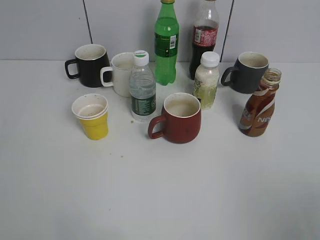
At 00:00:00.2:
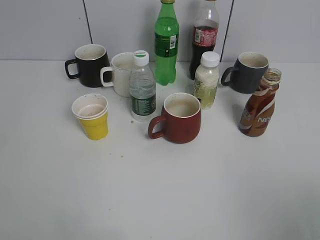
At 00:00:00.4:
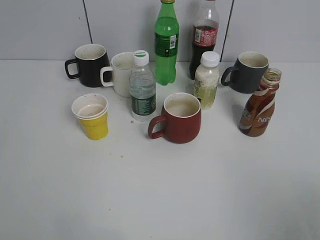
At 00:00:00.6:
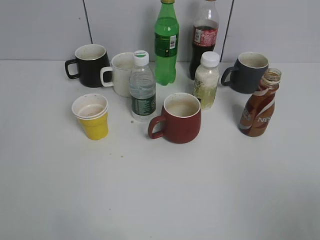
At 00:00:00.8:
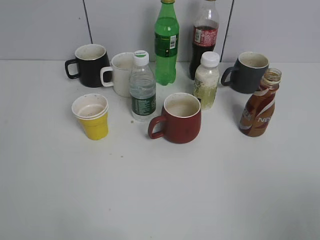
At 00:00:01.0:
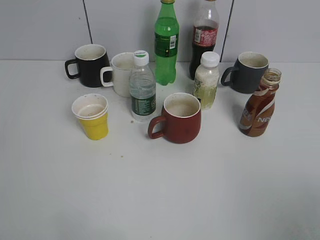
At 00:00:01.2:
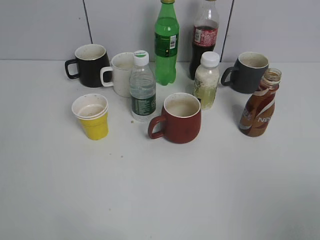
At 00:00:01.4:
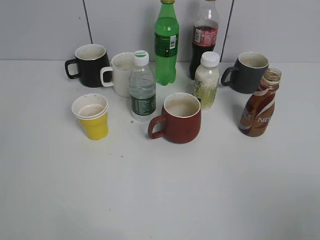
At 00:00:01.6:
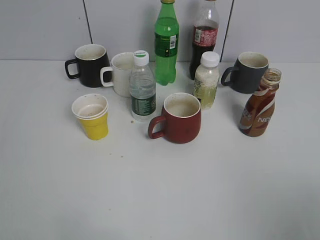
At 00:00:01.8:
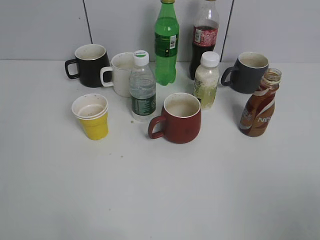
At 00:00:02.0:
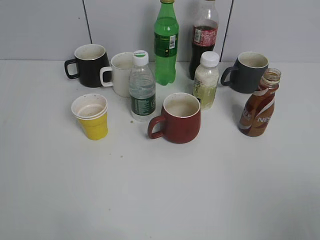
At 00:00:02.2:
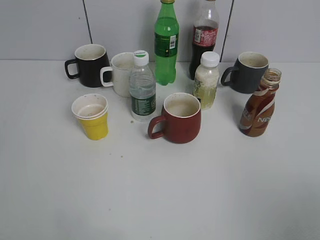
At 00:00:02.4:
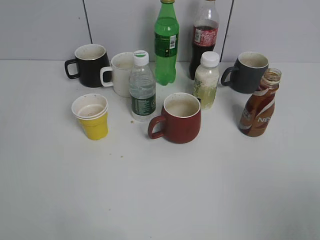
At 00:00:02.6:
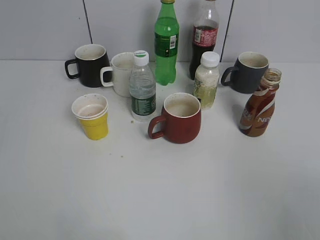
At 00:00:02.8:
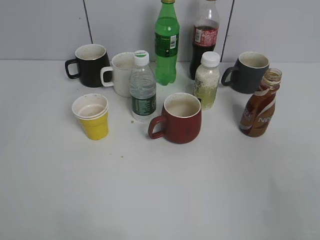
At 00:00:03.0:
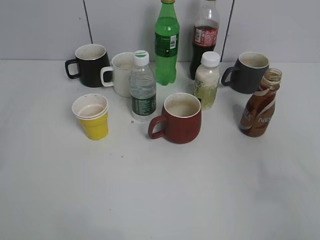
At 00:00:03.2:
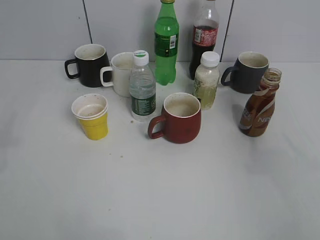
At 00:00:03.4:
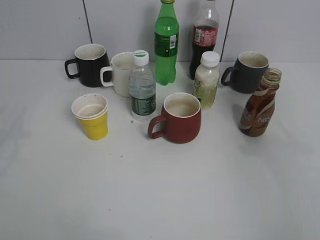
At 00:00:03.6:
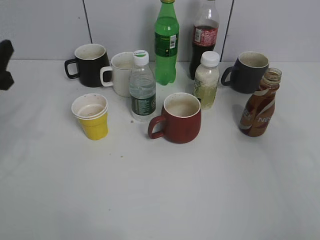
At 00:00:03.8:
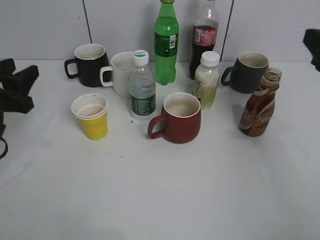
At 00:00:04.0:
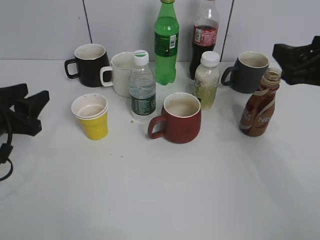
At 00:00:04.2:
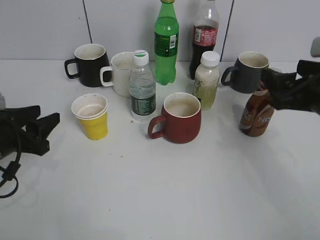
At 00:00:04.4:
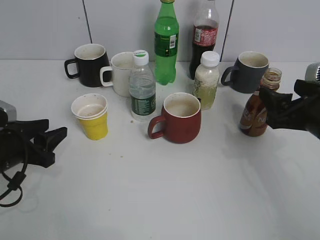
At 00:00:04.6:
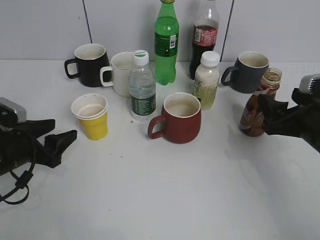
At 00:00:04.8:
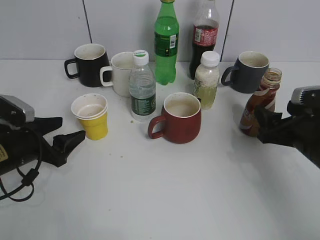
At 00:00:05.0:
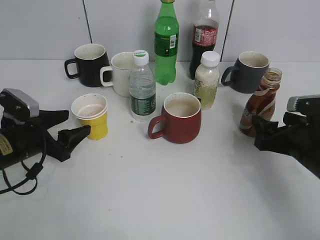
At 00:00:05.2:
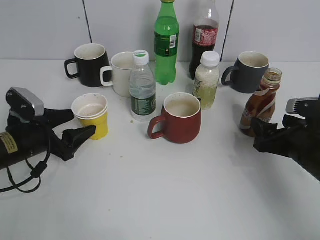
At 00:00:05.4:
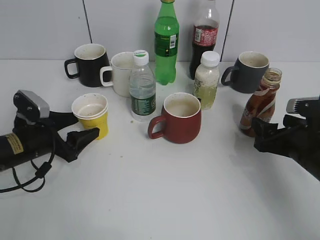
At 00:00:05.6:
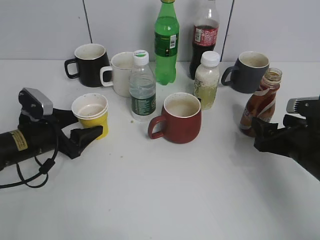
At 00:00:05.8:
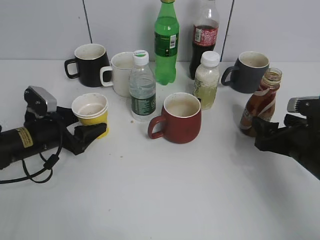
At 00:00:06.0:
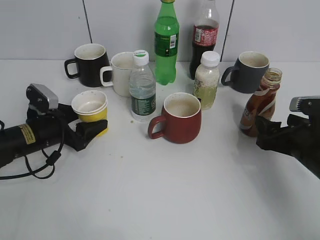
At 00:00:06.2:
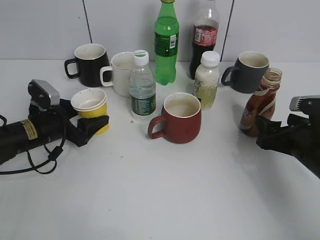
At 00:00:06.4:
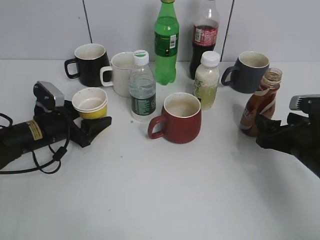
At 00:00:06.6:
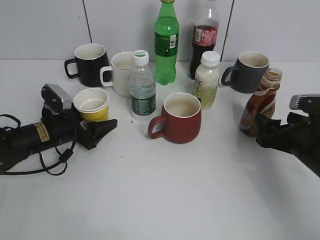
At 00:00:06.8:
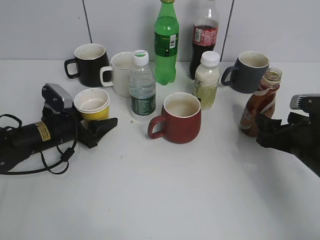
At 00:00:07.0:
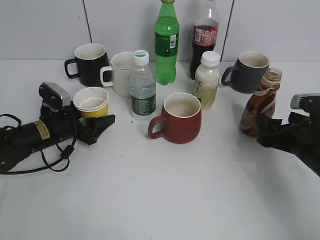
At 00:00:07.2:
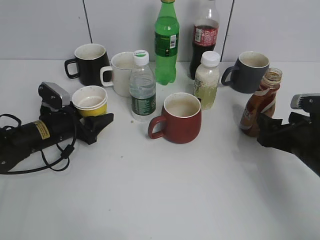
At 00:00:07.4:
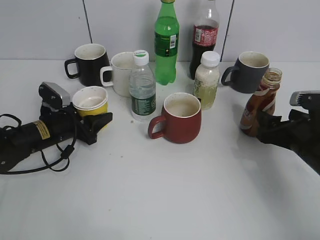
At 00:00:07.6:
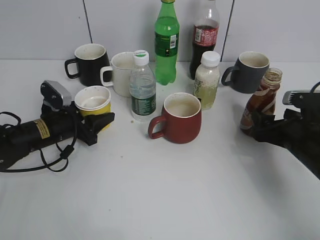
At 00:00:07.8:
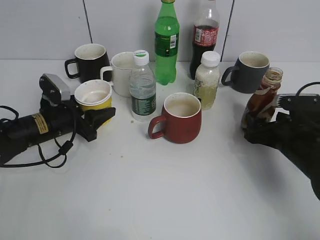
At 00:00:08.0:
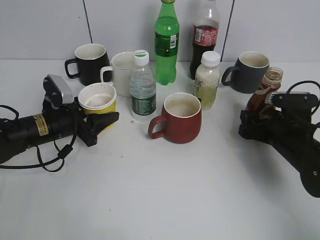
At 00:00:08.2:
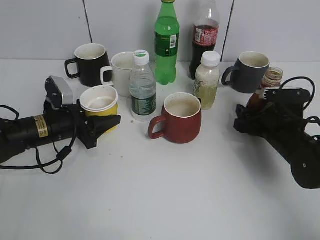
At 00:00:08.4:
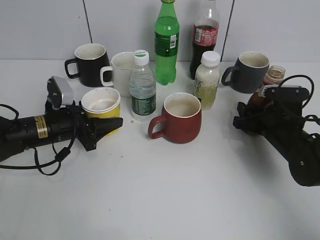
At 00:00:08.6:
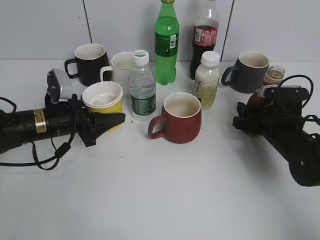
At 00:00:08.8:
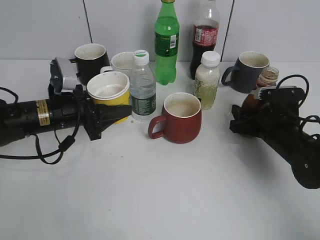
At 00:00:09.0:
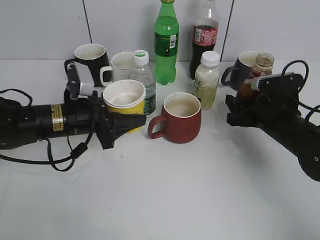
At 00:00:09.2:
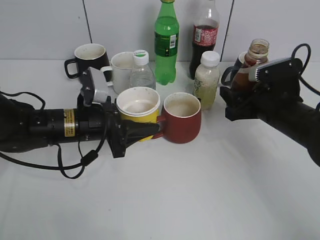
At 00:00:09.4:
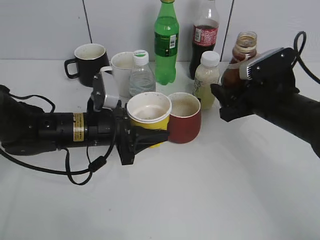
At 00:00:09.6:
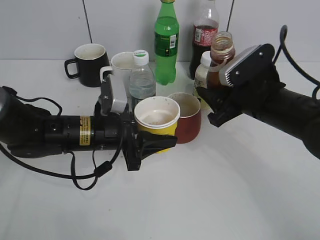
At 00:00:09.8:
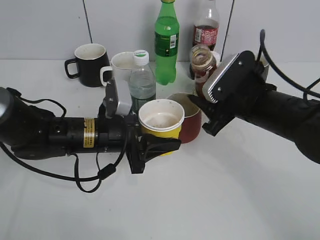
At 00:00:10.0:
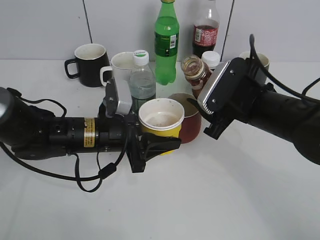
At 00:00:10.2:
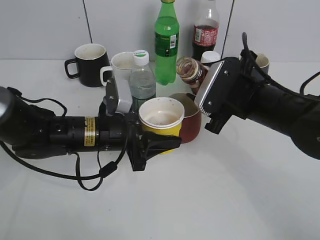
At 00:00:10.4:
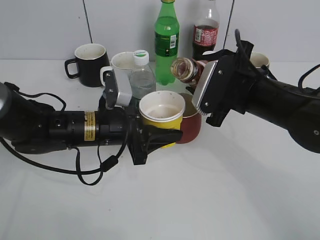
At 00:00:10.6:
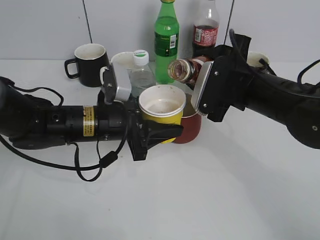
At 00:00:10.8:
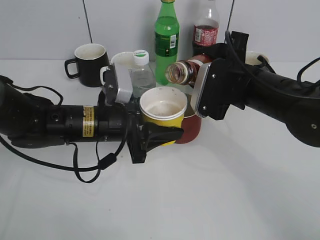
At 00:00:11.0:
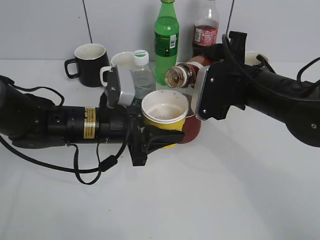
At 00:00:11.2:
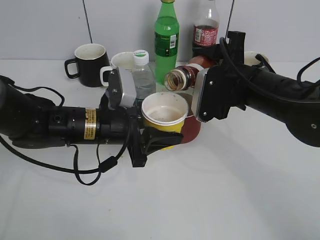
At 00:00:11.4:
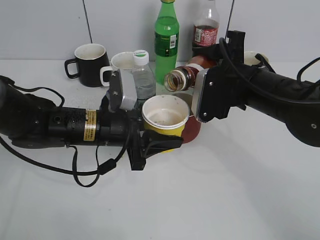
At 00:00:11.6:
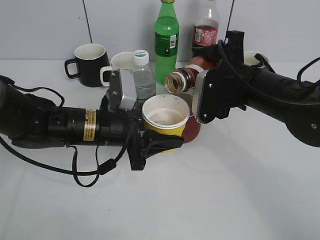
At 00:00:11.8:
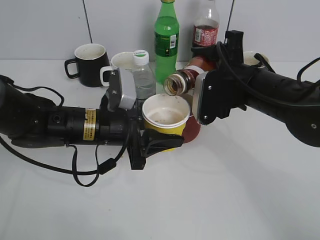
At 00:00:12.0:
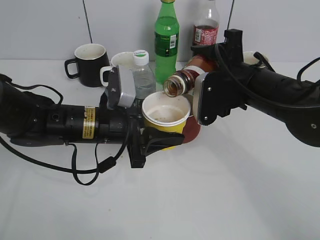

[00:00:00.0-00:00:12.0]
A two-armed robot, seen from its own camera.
Step, 00:00:02.0 to 00:00:07.2: Grasp the yellow paper cup with left gripper.
Step, 00:00:07.4 to 00:00:08.4: Grasp the bottle with coffee with right gripper.
00:00:01.6 to 00:00:03.0: The right gripper heads forward, covering some 10 cm.
00:00:03.0 to 00:00:04.4: The left gripper is displaced downward and forward by approximately 25 cm. Meanwhile the right gripper moves forward and downward, approximately 20 cm.
00:00:04.4 to 00:00:06.0: The left gripper shifts approximately 10 cm forward, and opens its fingers. Meanwhile the right gripper moves downward, some 5 cm.
00:00:06.0 to 00:00:07.6: The left gripper closes.
00:00:07.6 to 00:00:09.0: The left gripper is displaced upward and to the right by some 10 cm. The right gripper shifts by roughly 5 cm, and closes.
00:00:09.0 to 00:00:10.4: The right gripper is displaced upward and to the left by approximately 10 cm; the left gripper goes some 5 cm to the right.

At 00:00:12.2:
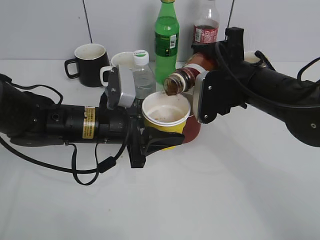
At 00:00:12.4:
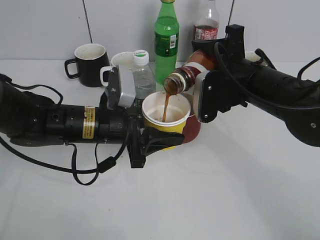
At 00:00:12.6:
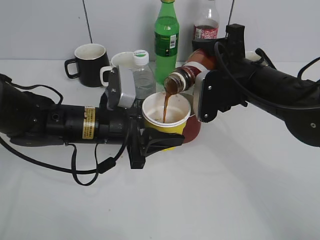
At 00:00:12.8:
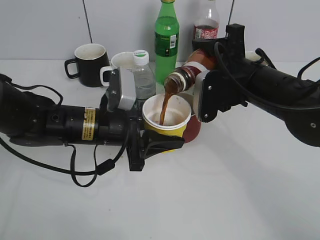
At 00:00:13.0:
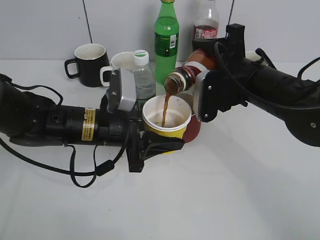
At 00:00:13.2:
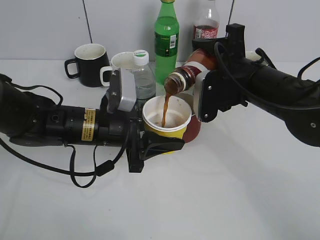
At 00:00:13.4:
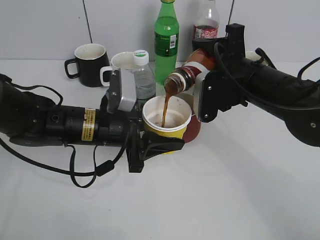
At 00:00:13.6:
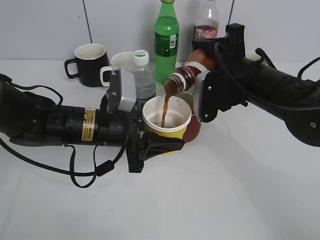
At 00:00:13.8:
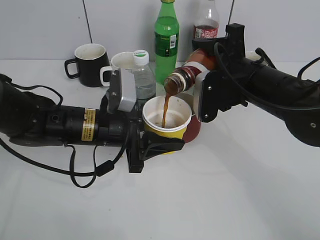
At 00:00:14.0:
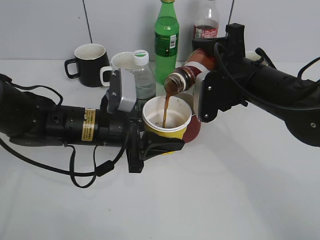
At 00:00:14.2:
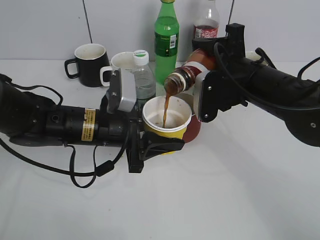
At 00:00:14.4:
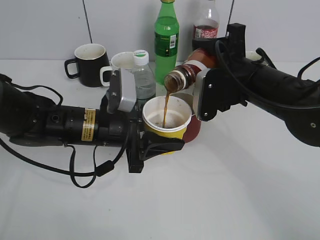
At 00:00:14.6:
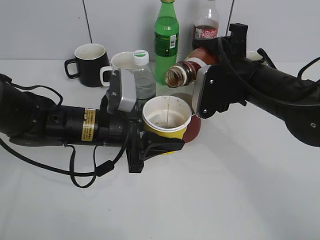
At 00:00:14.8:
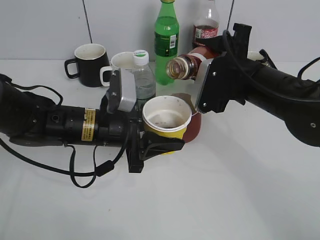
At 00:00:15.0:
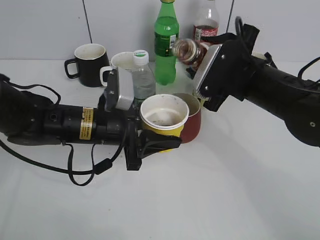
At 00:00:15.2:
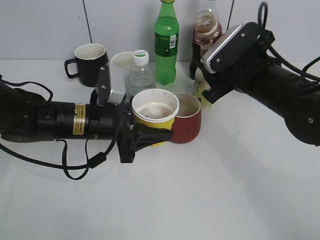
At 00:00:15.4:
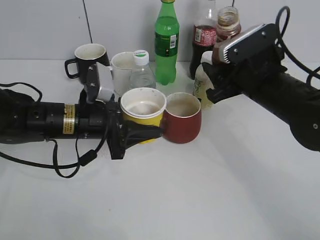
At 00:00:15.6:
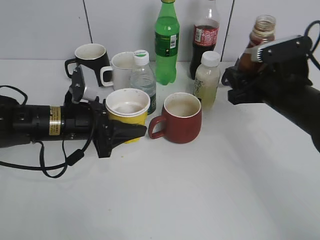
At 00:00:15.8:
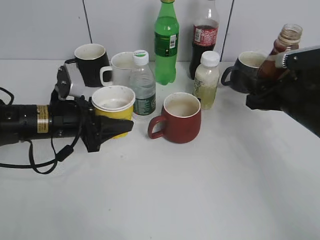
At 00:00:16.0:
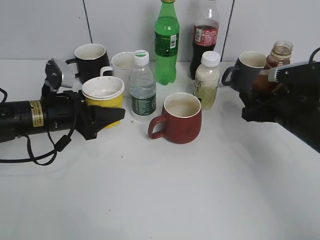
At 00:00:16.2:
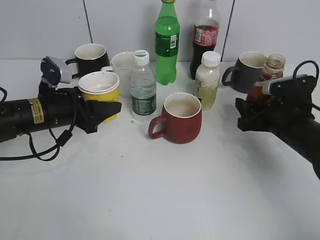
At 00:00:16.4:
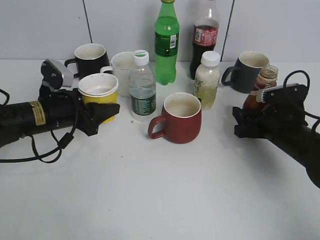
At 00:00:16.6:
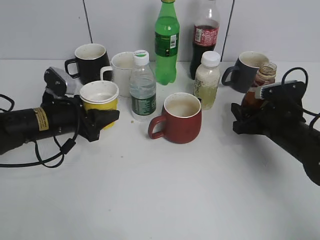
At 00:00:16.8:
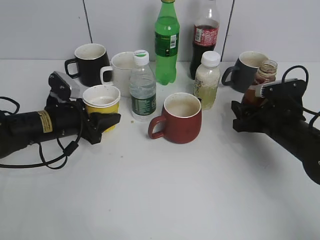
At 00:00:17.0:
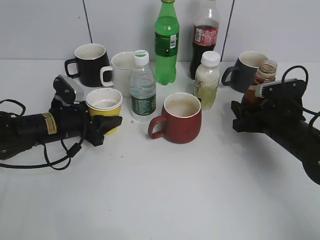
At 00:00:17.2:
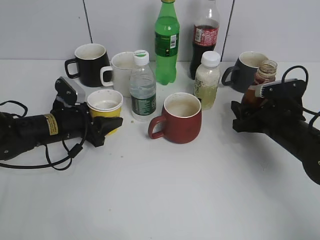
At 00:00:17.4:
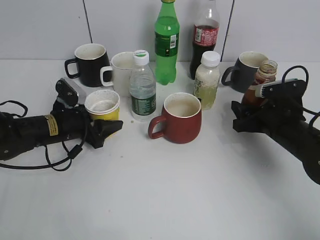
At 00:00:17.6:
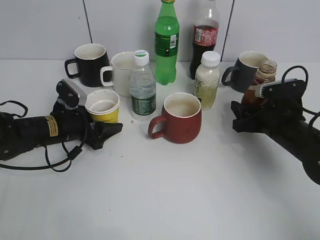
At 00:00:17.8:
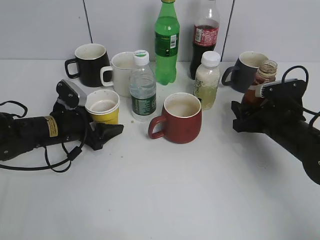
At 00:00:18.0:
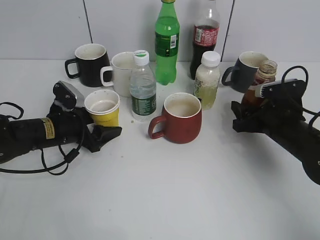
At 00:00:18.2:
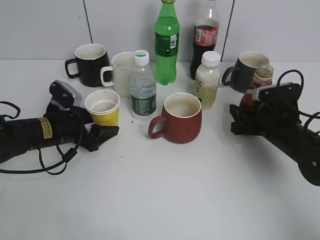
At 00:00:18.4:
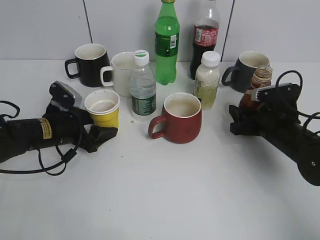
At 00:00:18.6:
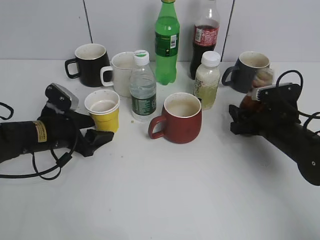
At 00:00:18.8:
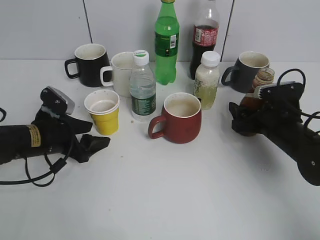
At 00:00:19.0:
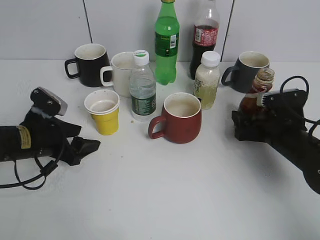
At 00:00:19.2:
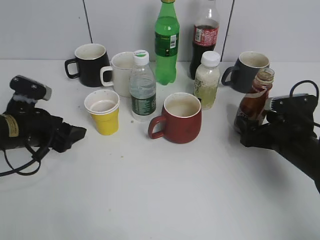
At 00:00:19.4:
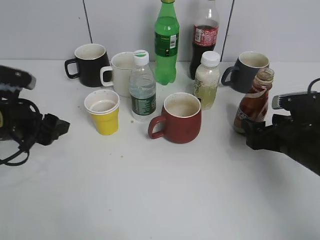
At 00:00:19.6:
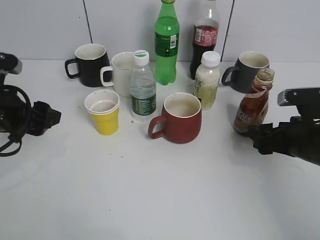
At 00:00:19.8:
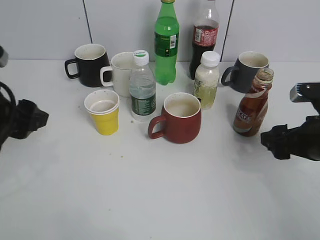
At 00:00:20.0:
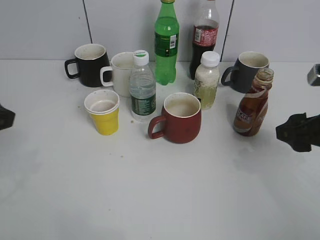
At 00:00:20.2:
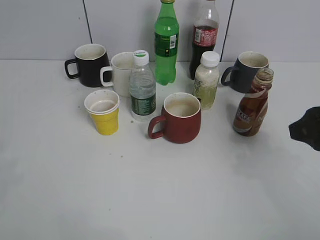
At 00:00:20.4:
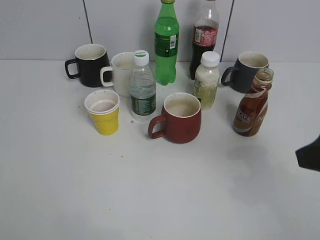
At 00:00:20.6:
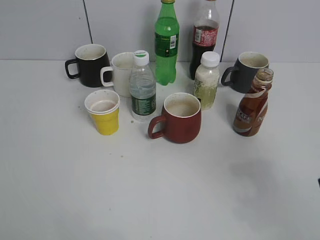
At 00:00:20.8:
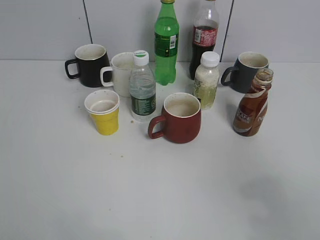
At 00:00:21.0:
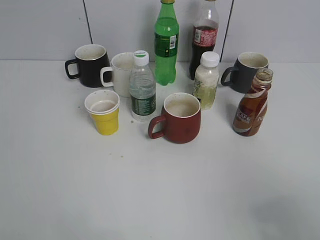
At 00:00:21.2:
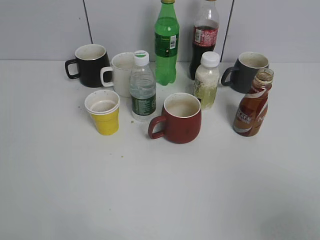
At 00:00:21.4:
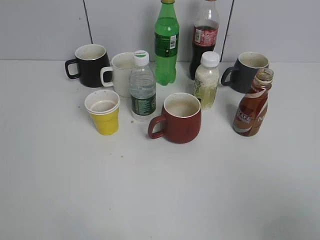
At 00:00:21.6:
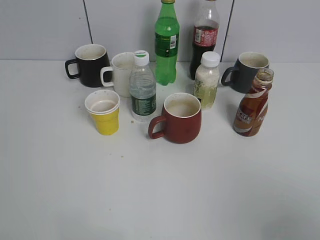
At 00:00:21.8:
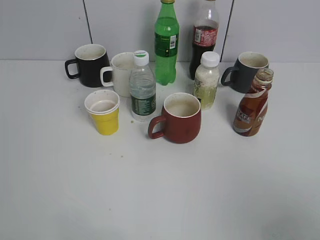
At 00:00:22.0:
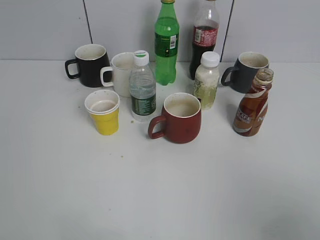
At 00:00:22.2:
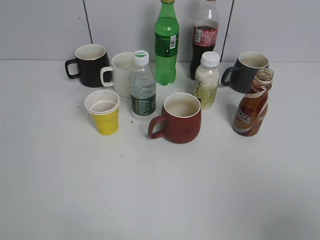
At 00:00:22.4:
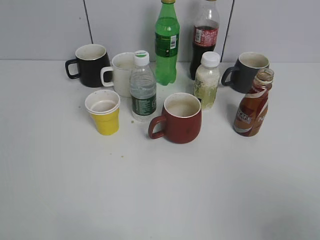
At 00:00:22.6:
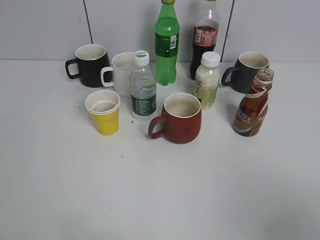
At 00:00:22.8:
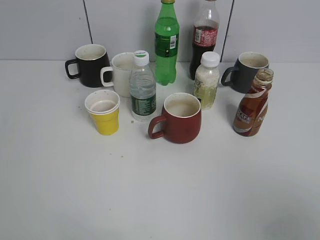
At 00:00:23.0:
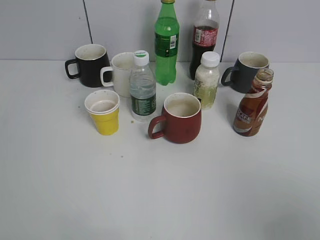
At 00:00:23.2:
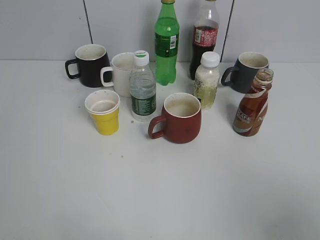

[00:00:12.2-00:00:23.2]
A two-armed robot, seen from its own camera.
Step, 00:00:12.2 to 00:00:15.4: Pour the coffee from bottle to cup with right gripper.
Step, 00:00:15.6 to 00:00:19.2: Place the coffee bottle on the table with right gripper.
00:00:12.2 to 00:00:13.8: Both grippers stay about where they are.
00:00:15.4 to 00:00:17.0: The right gripper is displaced downward and to the right by roughly 10 cm. Meanwhile the left gripper moves to the left and downward, some 10 cm.
00:00:17.0 to 00:00:18.4: The left gripper opens up.
00:00:18.4 to 00:00:20.0: The left gripper heads upward and backward, covering approximately 25 cm. The right gripper travels upward and backward by some 15 cm, and opens.
00:00:20.0 to 00:00:21.6: The right gripper goes roughly 25 cm backward and upward.
